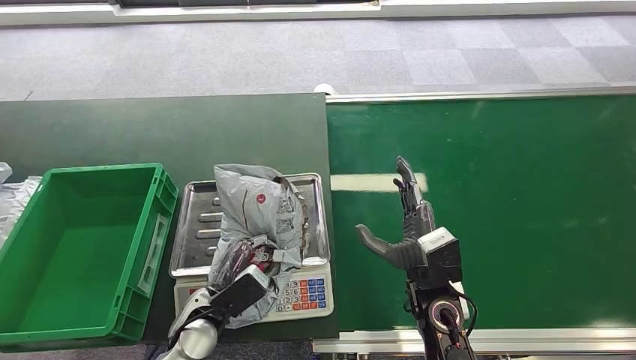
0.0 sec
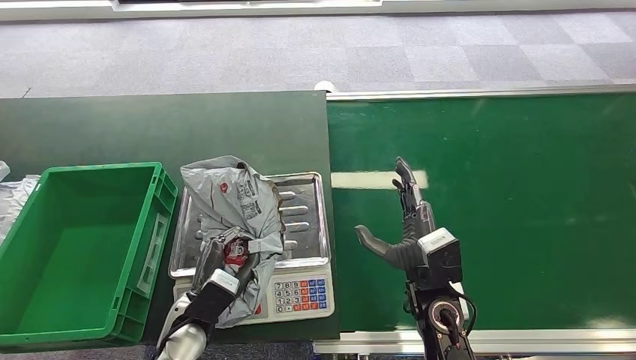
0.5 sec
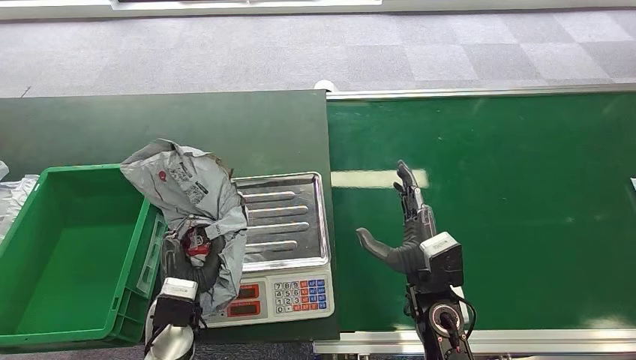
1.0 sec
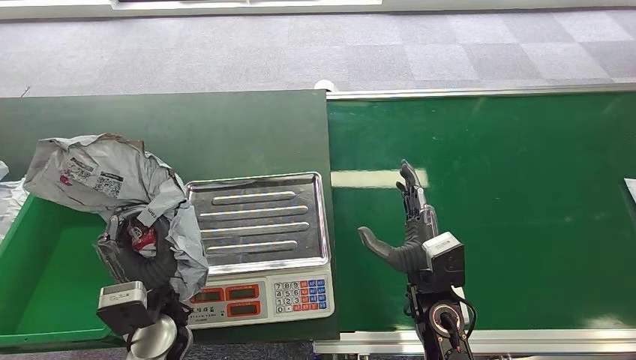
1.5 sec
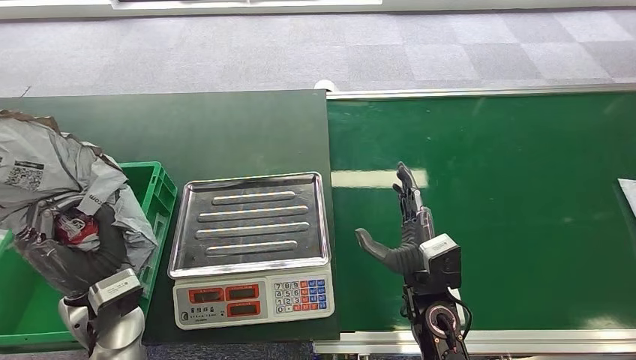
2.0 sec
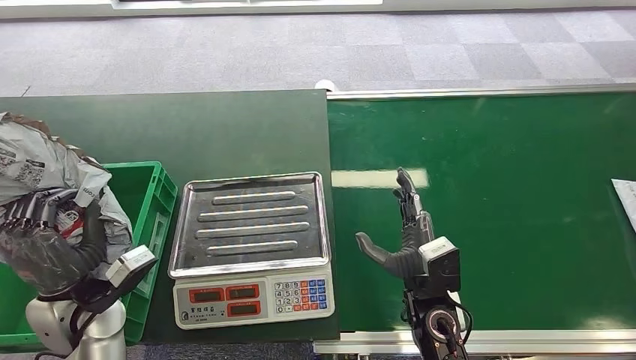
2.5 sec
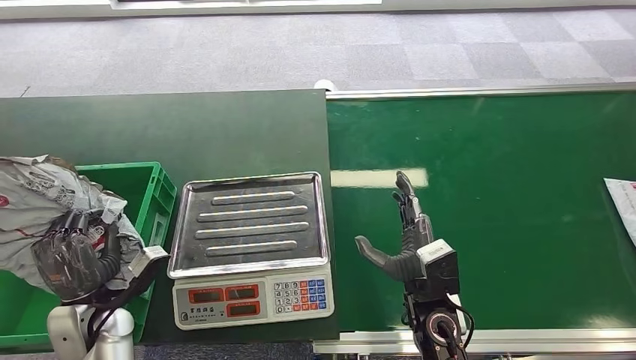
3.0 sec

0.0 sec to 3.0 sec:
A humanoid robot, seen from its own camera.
Step, 0.5 sec to 1.5 sec: Pick up the package from the inbound machine.
Step, 2.5 sec to 3.0 sec: Place the package into the parcel locker.
1.5 sec to 3.0 sec: The left hand goes some 10 cm to the left.
